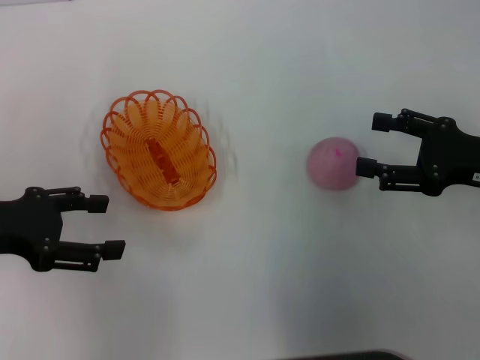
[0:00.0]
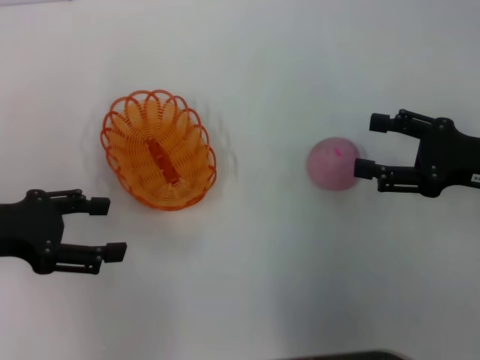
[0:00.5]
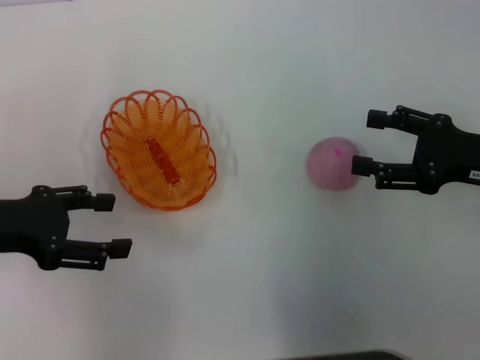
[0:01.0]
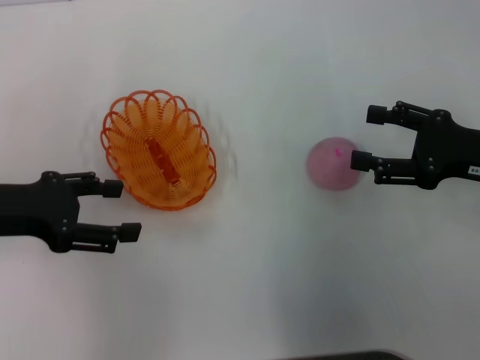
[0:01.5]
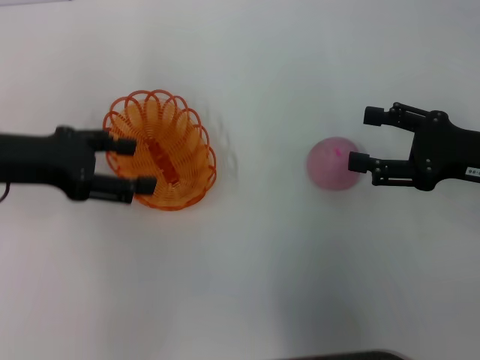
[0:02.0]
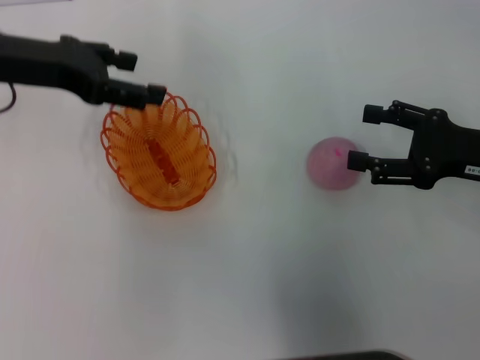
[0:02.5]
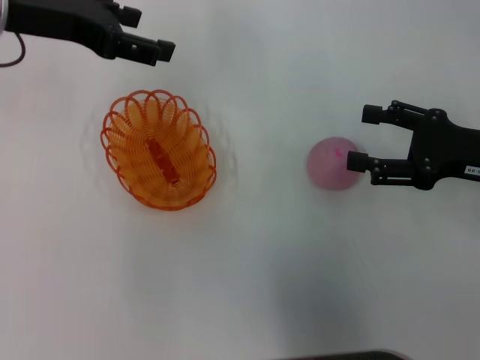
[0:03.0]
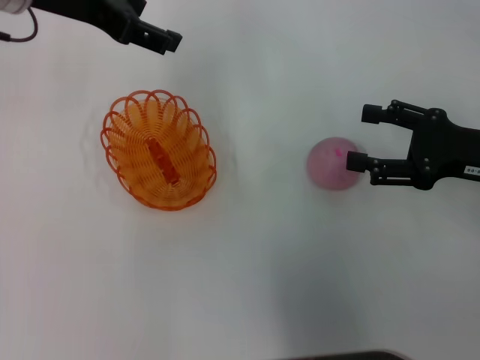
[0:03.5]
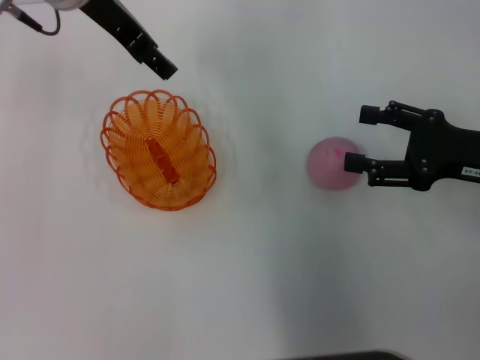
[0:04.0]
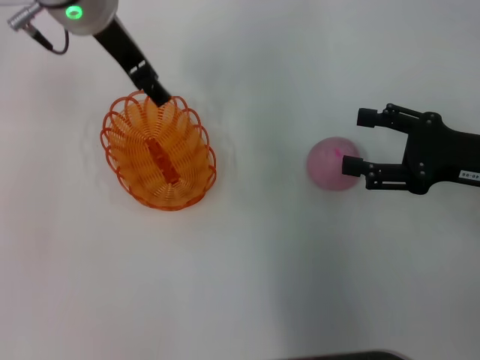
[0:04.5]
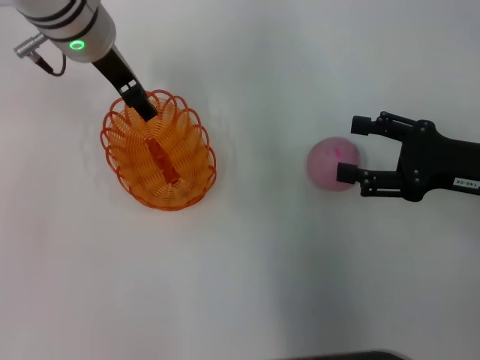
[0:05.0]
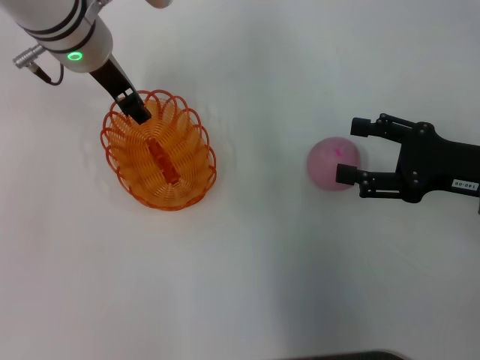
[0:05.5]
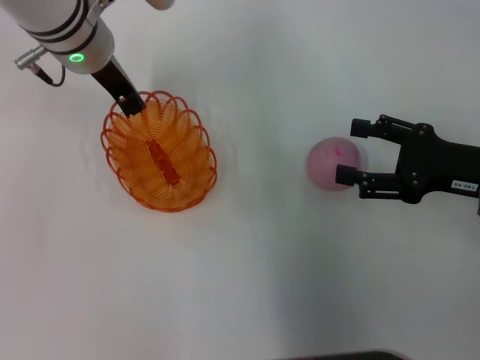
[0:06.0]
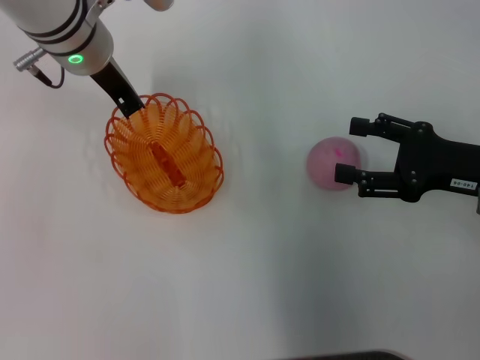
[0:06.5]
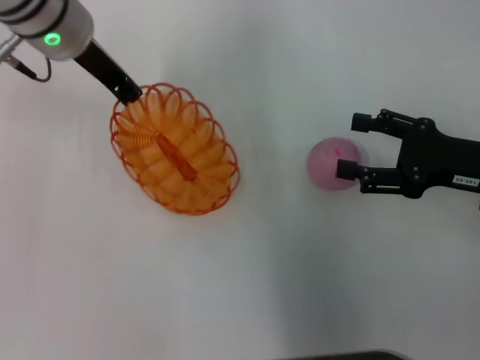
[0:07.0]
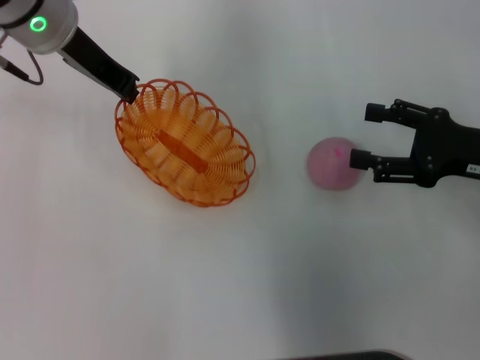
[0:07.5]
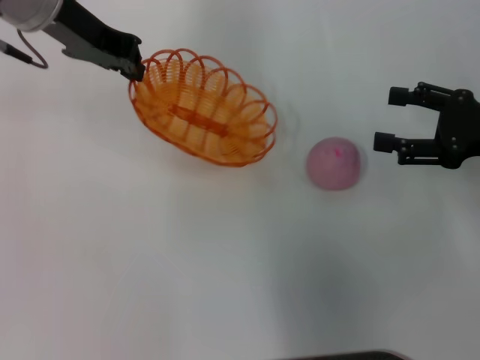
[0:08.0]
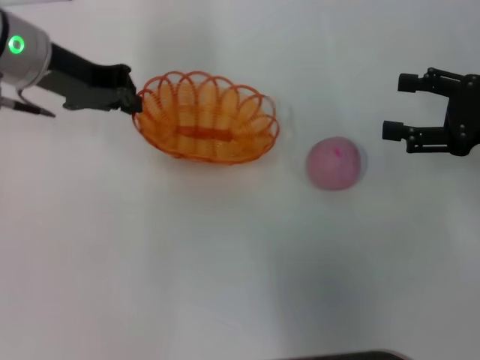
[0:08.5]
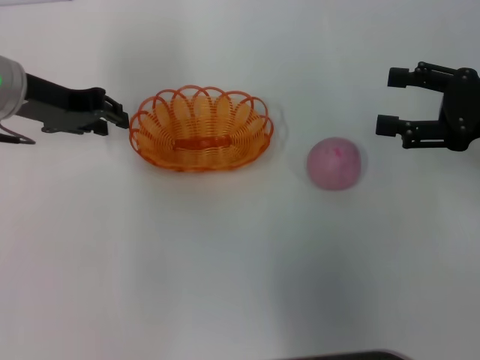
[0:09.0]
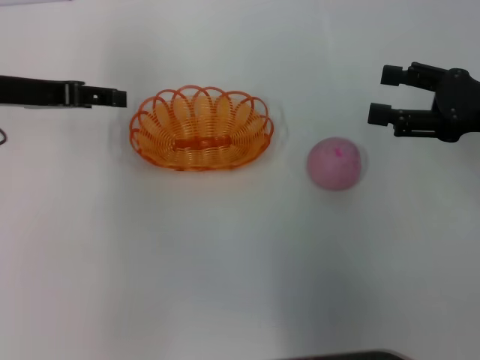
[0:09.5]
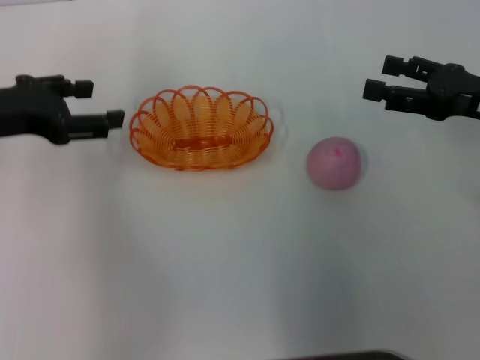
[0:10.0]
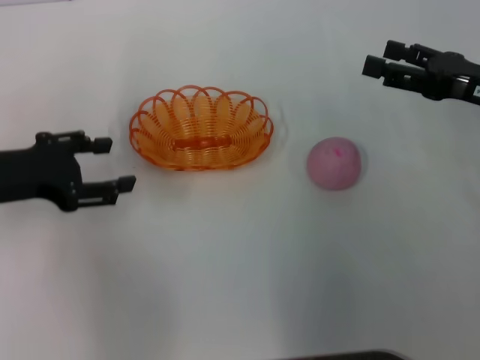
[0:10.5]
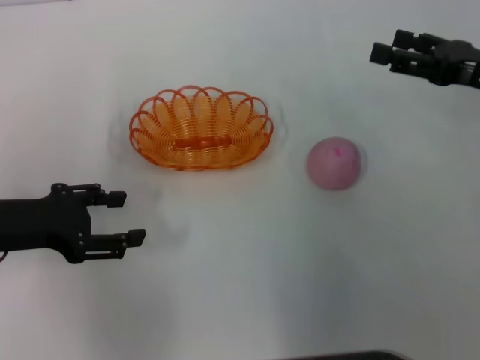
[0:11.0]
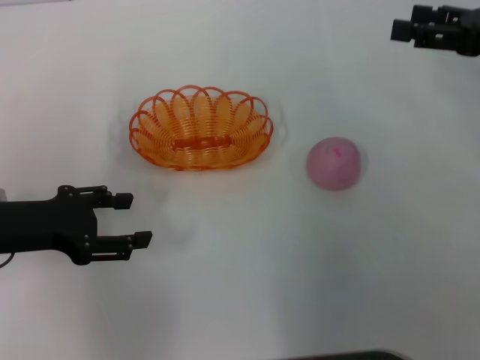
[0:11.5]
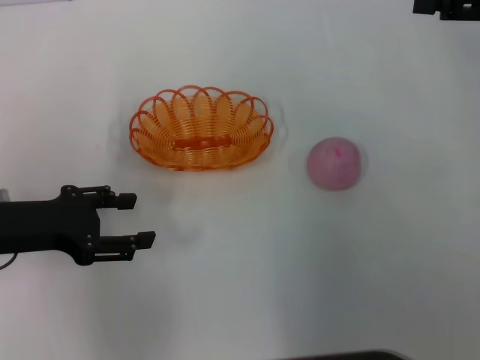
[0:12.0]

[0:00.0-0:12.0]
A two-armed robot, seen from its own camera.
Step, 0:00.0 to 0:07.0: Pick up the basket with the left gripper.
Step, 0:07.5 to 0:09.5: Place the basket in the center of view with the left gripper.
0:00.0 to 0:02.0: The left gripper ends up approximately 5 cm from where it was.
0:02.0 to 0:04.0: The left gripper moves to the right, forward and upward, some 20 cm.
0:04.0 to 0:06.0: The left gripper is displaced downward by roughly 5 cm, and closes its fingers.
0:06.0 to 0:08.0: The left gripper goes roughly 5 cm upward, and closes up.
0:08.0 to 0:10.0: The left gripper moves to the left, backward and downward, roughly 15 cm, and opens up.
0:10.0 to 0:12.0: The left gripper goes about 10 cm downward and backward, while the right gripper moves upward, about 10 cm.

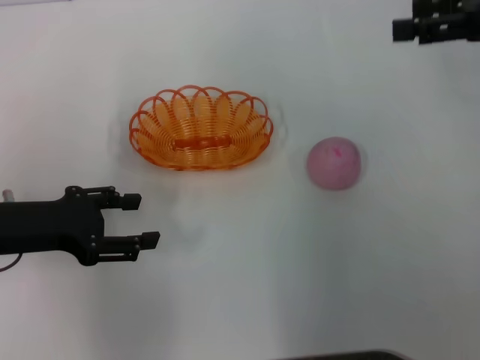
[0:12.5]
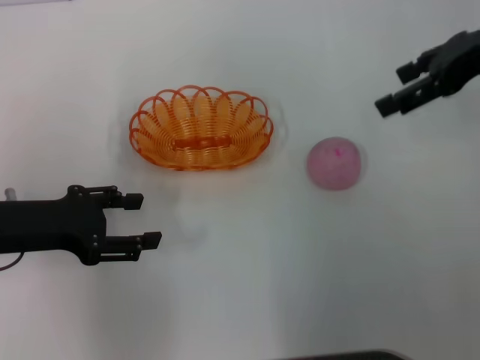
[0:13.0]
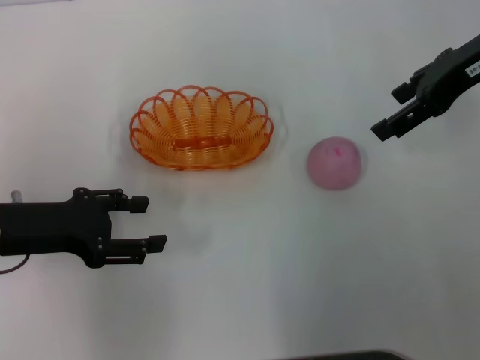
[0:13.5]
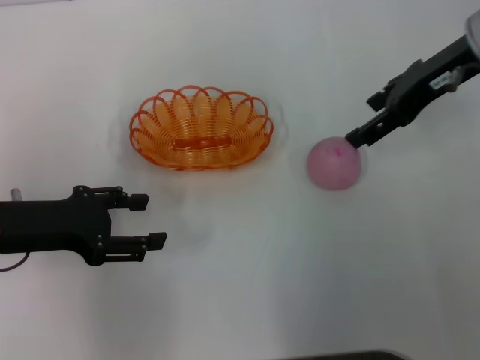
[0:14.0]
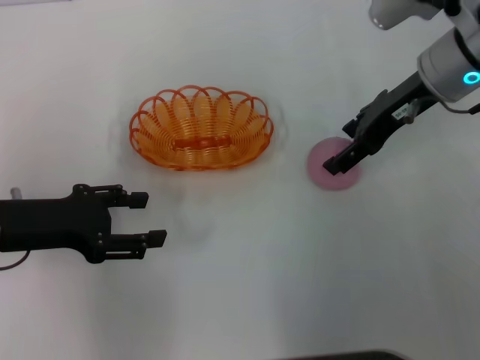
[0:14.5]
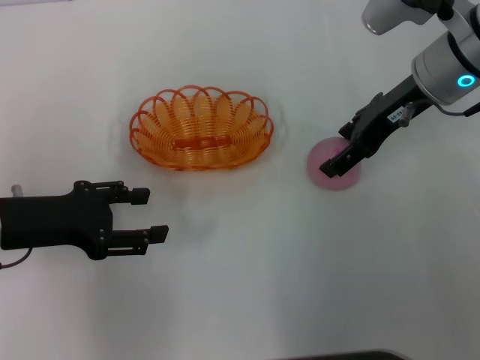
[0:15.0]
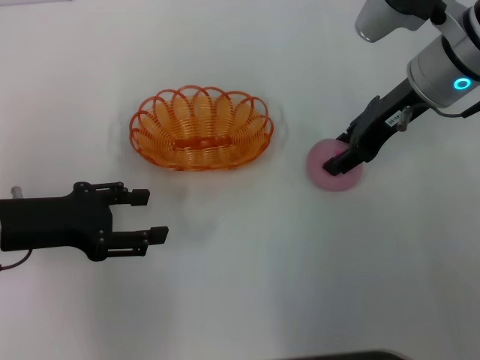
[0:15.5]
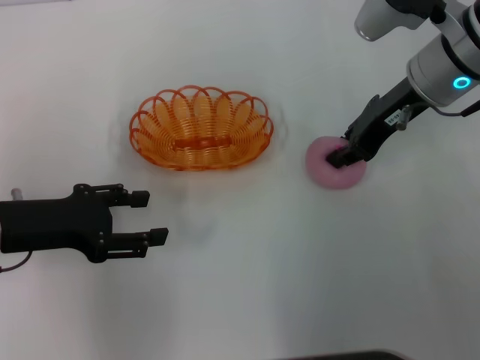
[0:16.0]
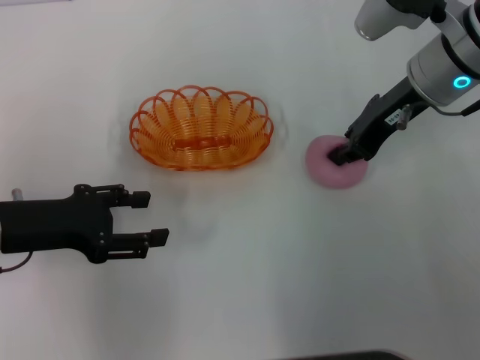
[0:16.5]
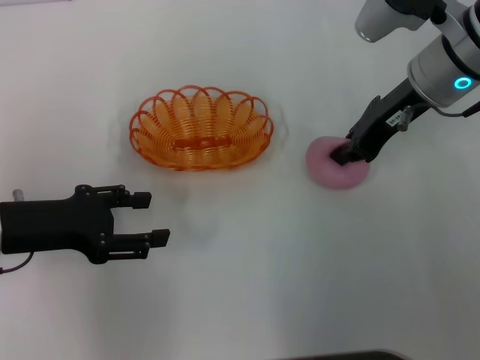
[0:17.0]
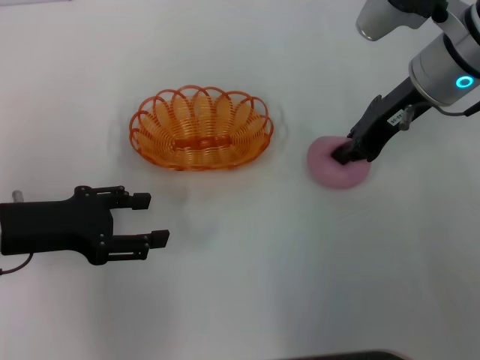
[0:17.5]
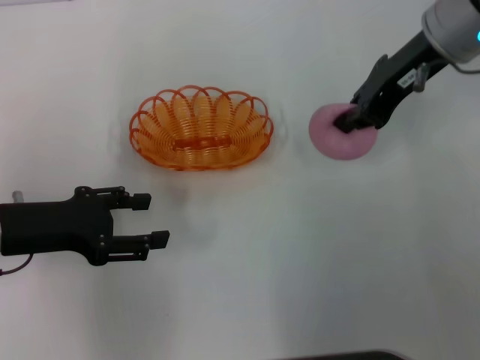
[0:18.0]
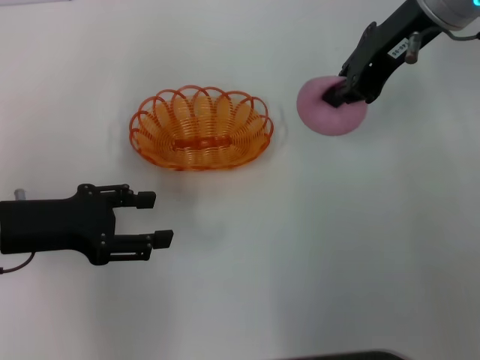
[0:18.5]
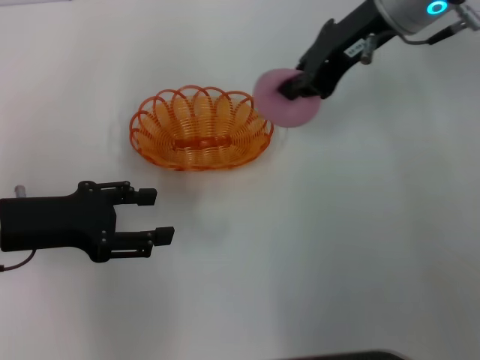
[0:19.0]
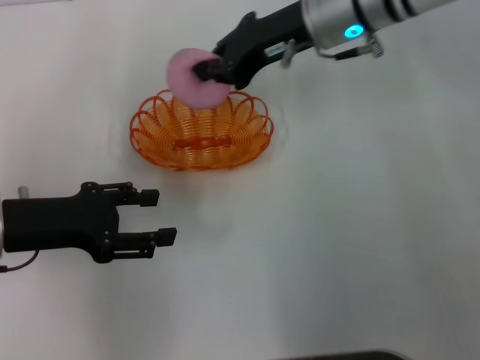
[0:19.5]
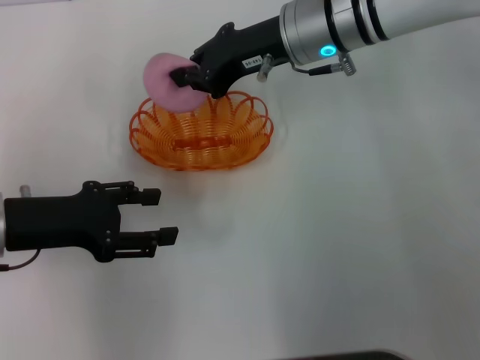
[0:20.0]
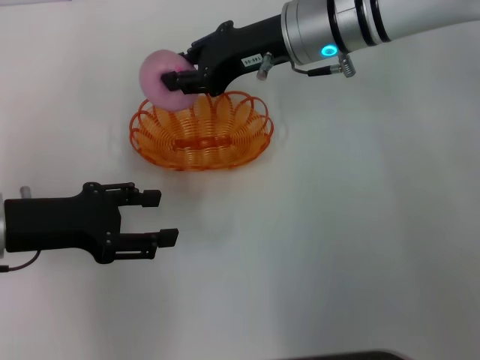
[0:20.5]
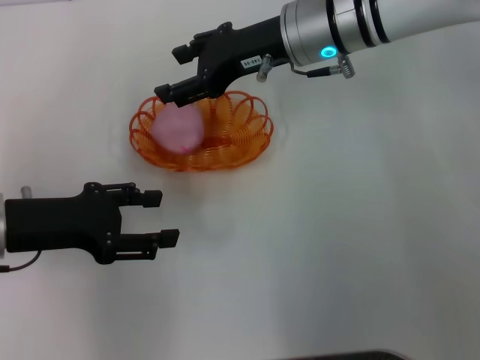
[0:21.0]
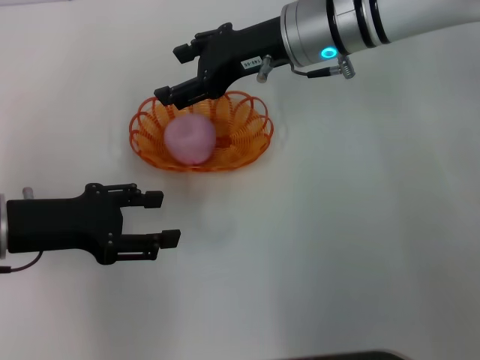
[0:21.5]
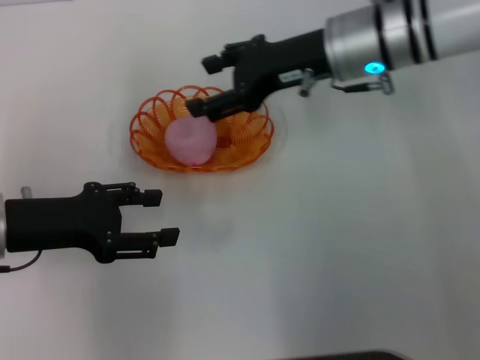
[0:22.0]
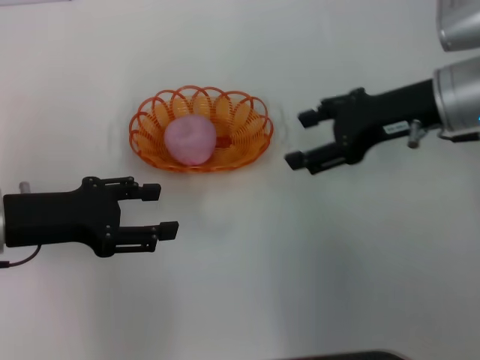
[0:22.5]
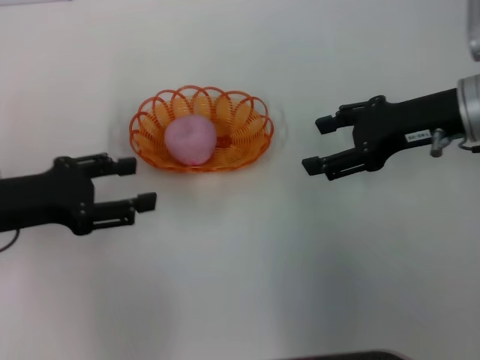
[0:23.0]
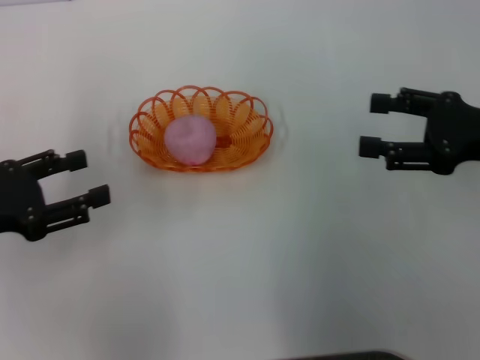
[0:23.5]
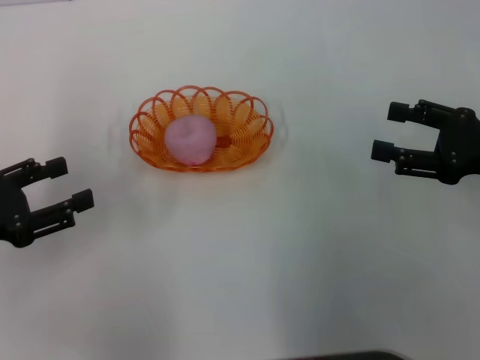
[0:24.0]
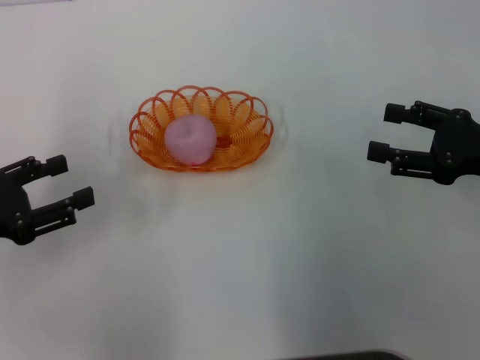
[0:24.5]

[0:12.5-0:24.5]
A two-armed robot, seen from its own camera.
Step, 0:12.5 to 0:18.0: Pick up the peach with the right gripper.
Step, 0:18.5 to 0:22.5: Place the peach into the basket with the right gripper.
0:12.5 to 0:14.5: The right gripper moves to the left and downward, about 15 cm.
0:14.5 to 0:16.5: The right gripper closes.
0:16.5 to 0:18.5: The right gripper goes some 10 cm upward.
0:18.5 to 0:20.5: The right gripper shifts approximately 10 cm downward and to the left.
0:20.5 to 0:22.5: The right gripper travels to the right and backward by approximately 15 cm, and opens its fingers.
0:22.5 to 0:24.5: The right gripper shifts roughly 10 cm to the right and backward, while the left gripper is displaced to the left by about 5 cm.
